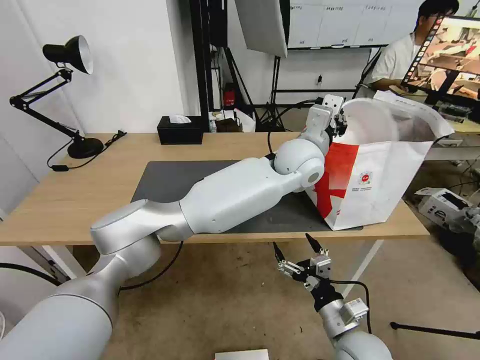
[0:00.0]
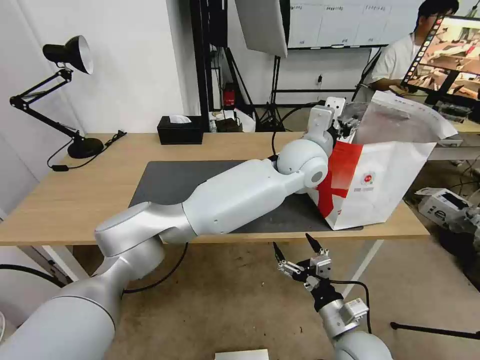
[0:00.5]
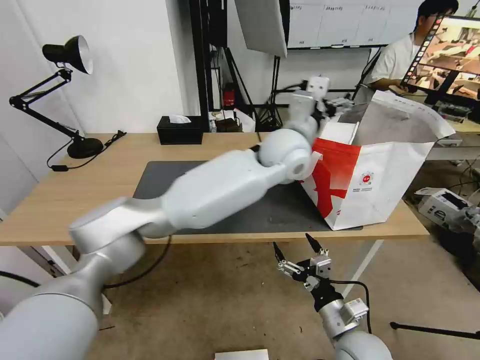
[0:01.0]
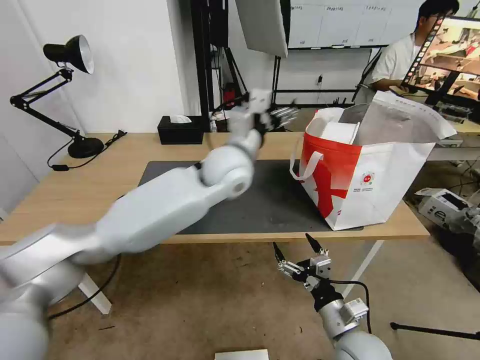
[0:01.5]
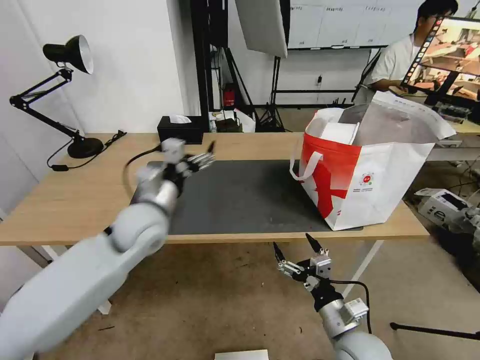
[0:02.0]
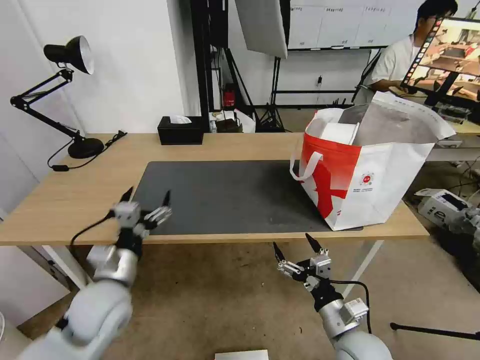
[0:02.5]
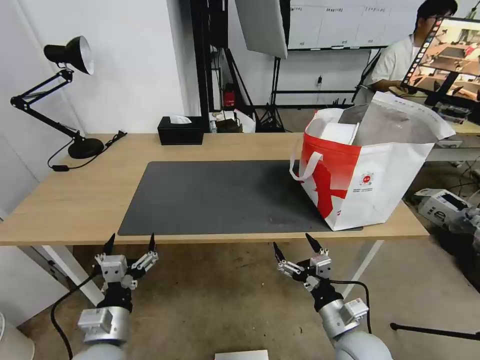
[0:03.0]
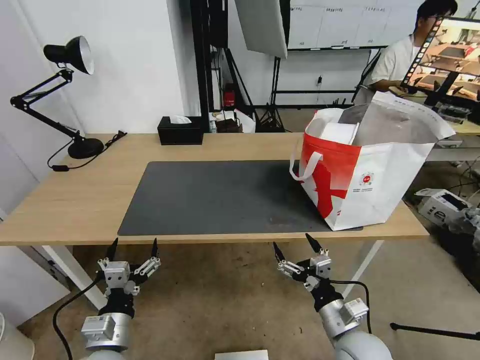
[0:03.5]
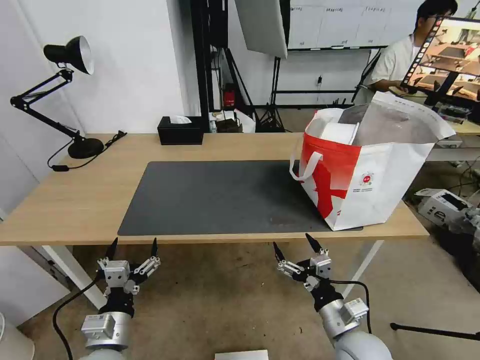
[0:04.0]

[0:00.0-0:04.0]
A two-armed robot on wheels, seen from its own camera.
Task of the whole recording: Pick up the trash from the table and place it into the takeout bag.
0:00.0 to 0:02.0: The left gripper is displaced to the left by about 30 cm, and opens up.
0:02.0 to 0:04.0: The left gripper goes approximately 25 cm backward and downward.
